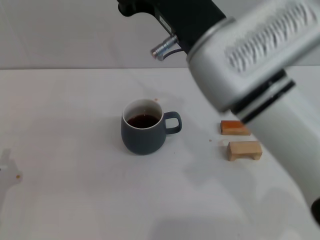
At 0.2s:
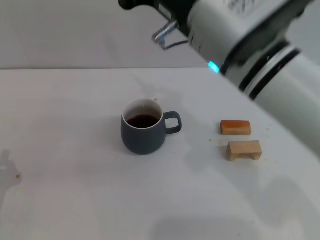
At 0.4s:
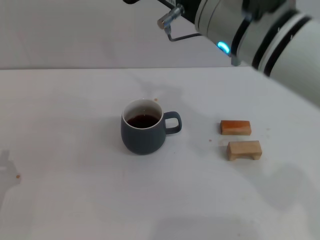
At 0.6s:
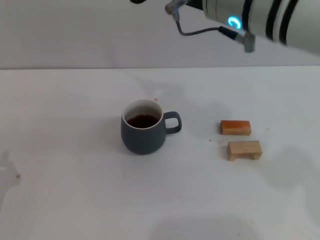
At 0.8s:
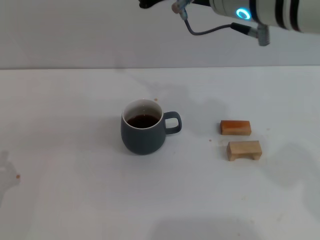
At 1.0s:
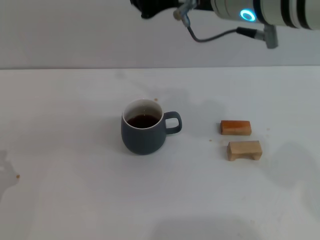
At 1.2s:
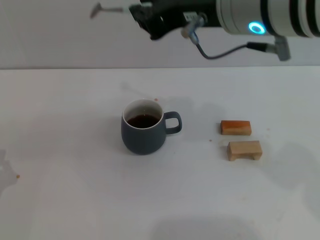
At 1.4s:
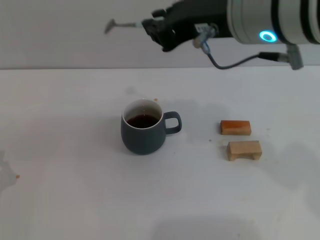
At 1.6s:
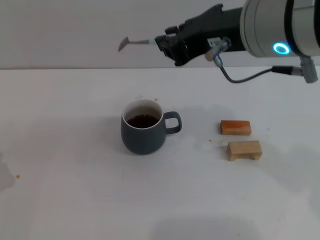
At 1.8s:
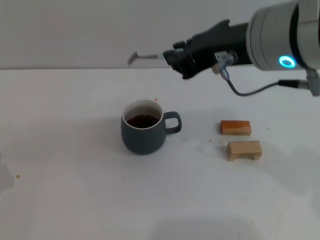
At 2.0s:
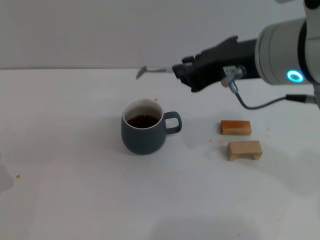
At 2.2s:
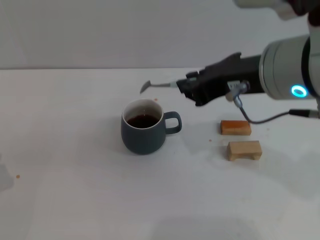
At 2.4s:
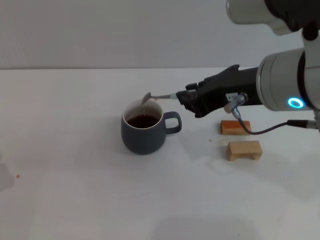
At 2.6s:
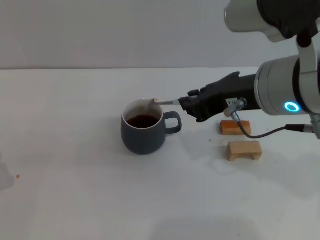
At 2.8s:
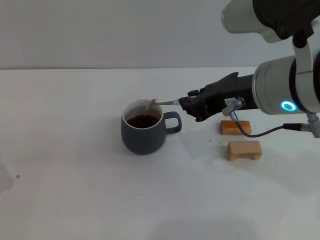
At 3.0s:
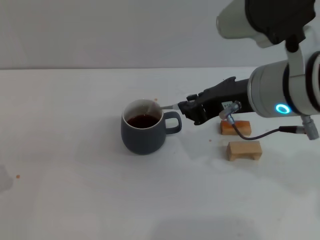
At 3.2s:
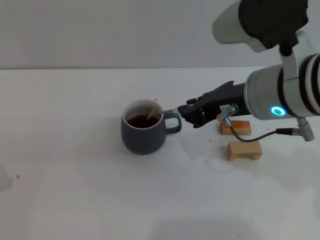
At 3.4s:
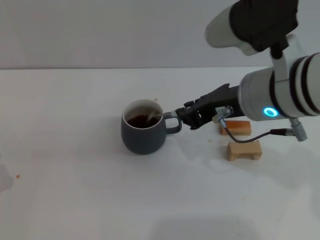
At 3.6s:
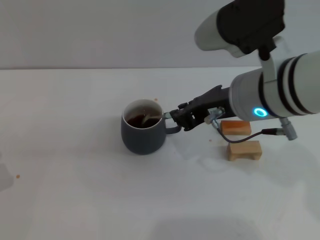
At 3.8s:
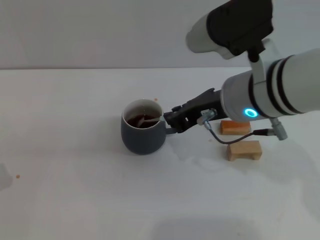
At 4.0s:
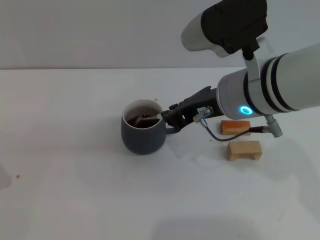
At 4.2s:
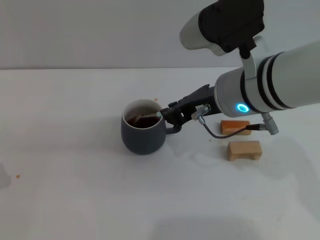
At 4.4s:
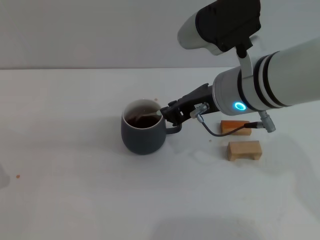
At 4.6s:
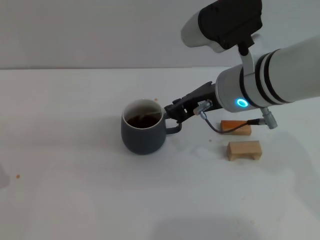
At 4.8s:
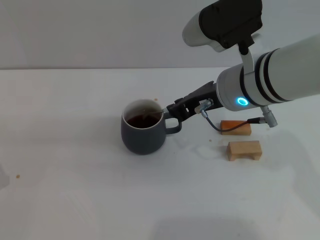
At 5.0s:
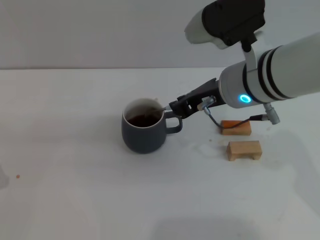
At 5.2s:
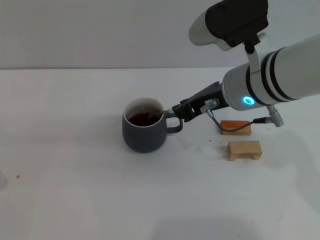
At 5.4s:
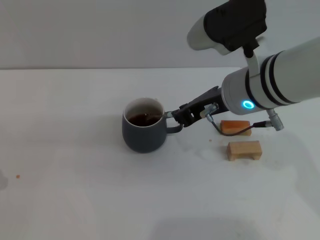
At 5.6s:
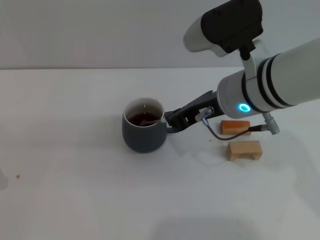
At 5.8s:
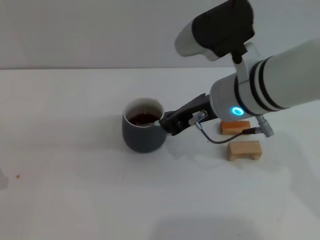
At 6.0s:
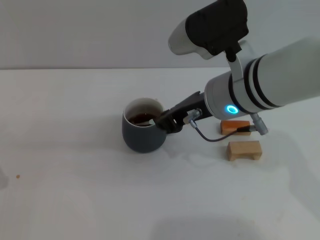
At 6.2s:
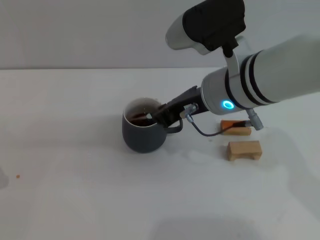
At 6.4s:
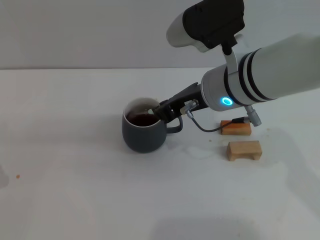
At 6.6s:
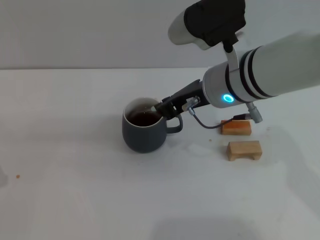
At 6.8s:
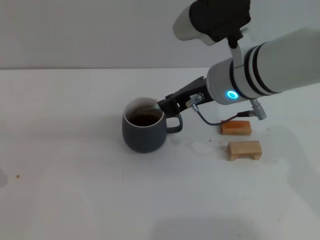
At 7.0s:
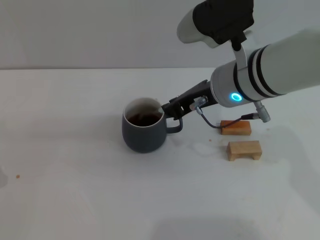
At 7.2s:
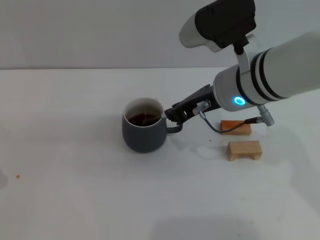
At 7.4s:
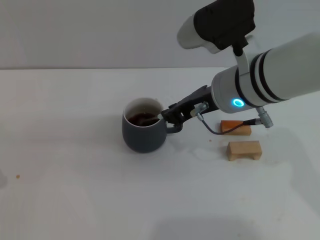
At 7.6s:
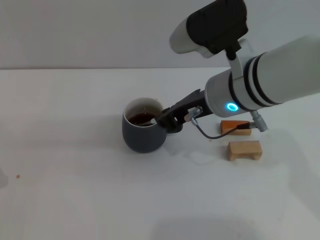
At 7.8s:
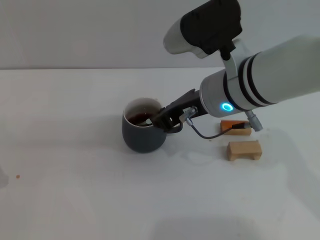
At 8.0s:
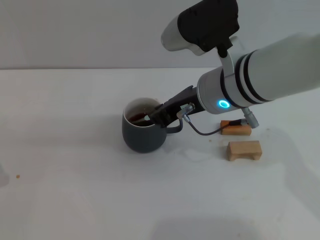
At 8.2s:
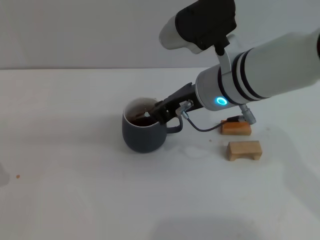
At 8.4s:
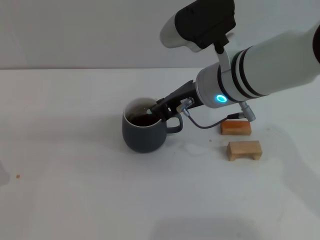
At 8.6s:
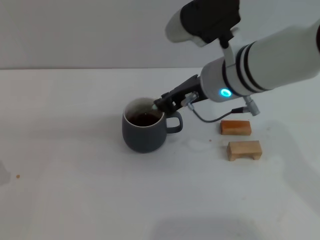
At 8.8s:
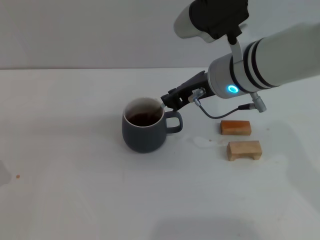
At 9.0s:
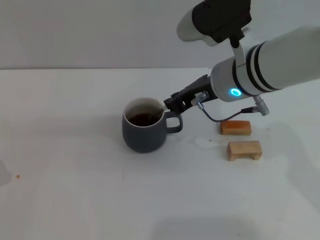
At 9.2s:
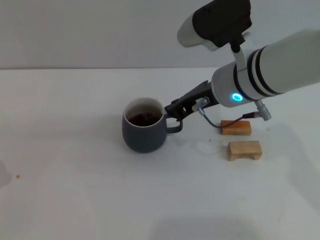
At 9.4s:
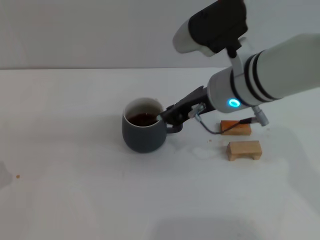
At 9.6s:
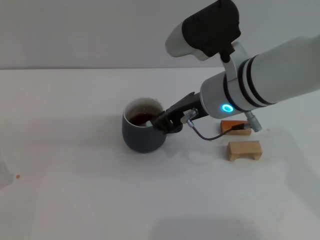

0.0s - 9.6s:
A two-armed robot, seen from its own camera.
Task of the whole recording: Move the grey cup to the center, lift the blue spoon, stir it three times in the cup, and put the spoon into the cup.
0.0s - 1.6s: The right gripper is displaced upward by roughly 5 cm.
1.6s - 3.2s: The right gripper travels downward by roughly 5 cm.
3.2s - 4.8s: The right gripper ends up roughly 5 cm from where it was.
4.8s - 9.6s: The grippers stay close to where they were, moving slightly.

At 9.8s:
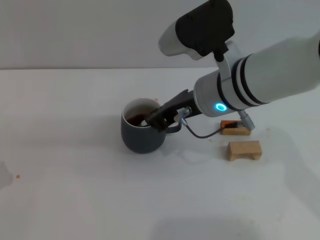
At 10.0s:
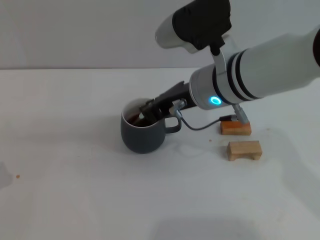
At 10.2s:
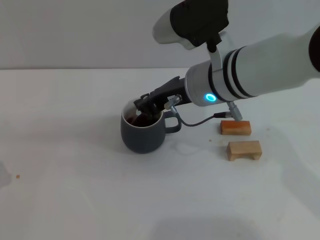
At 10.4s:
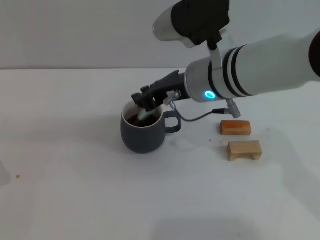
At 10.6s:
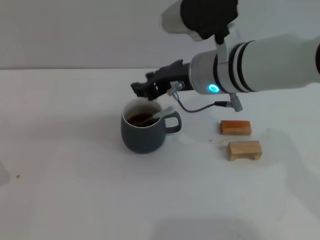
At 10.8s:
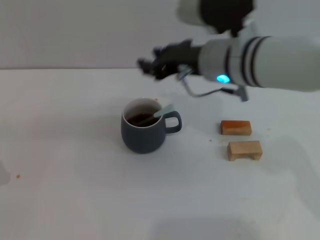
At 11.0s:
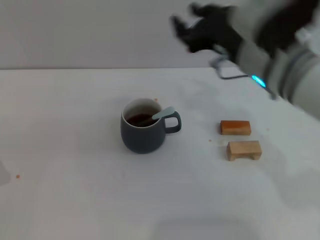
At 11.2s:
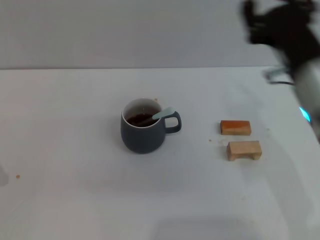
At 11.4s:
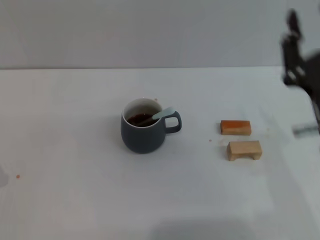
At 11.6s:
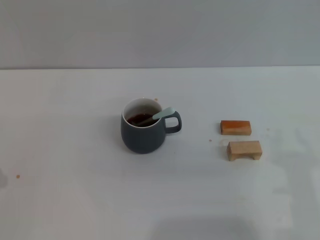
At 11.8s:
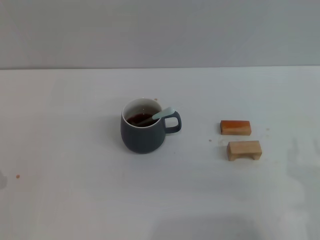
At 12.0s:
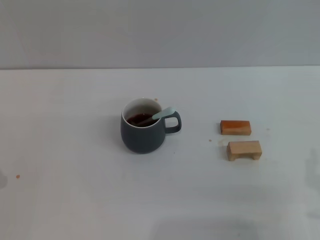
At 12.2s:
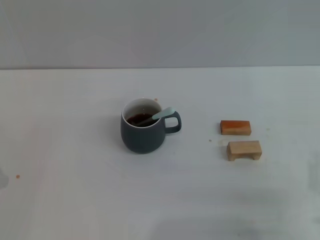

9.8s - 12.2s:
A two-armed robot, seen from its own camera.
Task of the whole recording: Move the grey cup to the center, lift the blue spoon, stir it three times in the cup, and put the spoon into the cup.
9.8s - 11.0s: The right gripper is displaced to the right by about 5 cm, and opens.
11.0s - 12.2s: The right gripper heads backward, downward and to the right, covering approximately 25 cm.
